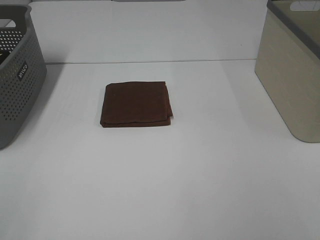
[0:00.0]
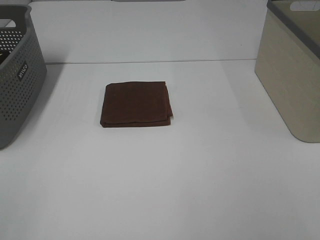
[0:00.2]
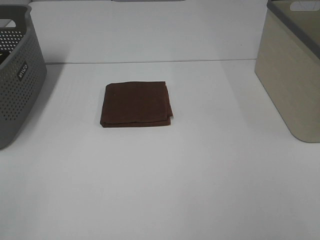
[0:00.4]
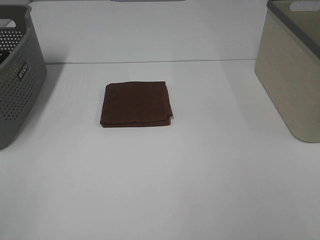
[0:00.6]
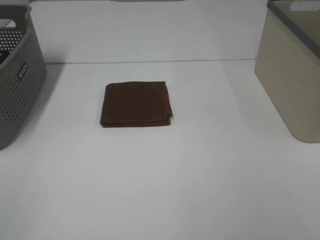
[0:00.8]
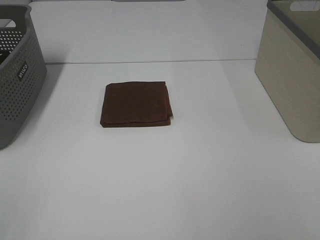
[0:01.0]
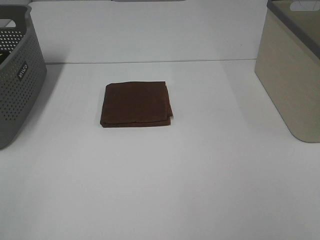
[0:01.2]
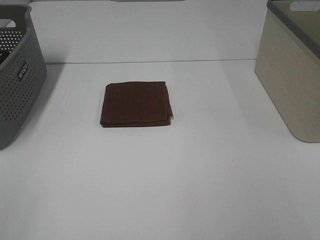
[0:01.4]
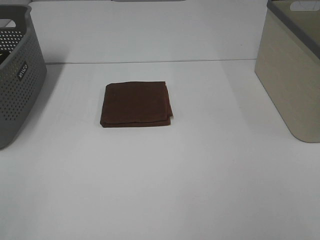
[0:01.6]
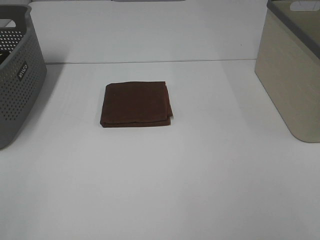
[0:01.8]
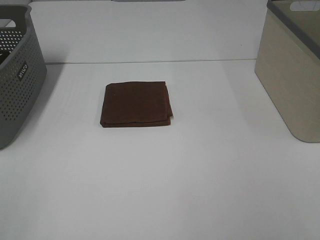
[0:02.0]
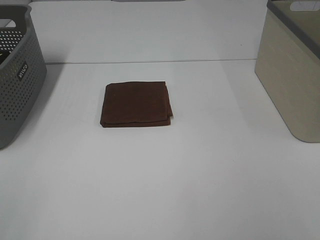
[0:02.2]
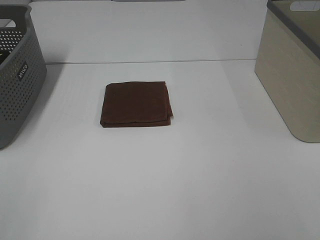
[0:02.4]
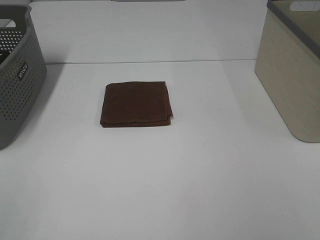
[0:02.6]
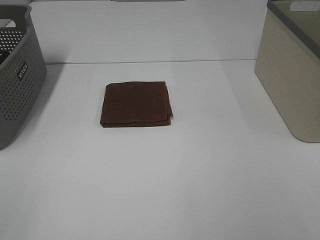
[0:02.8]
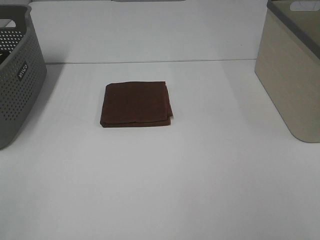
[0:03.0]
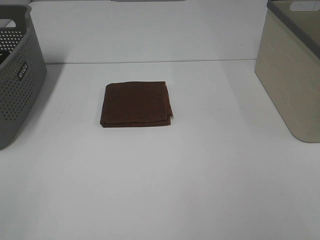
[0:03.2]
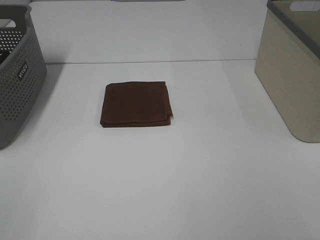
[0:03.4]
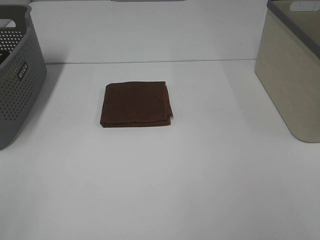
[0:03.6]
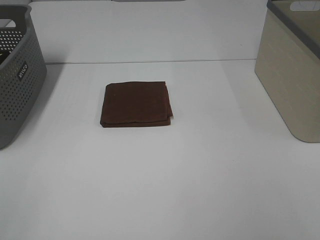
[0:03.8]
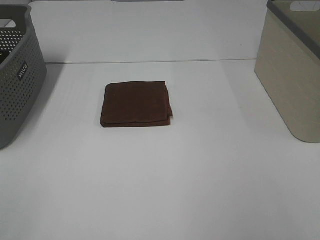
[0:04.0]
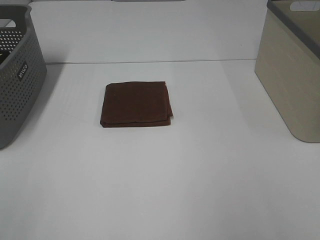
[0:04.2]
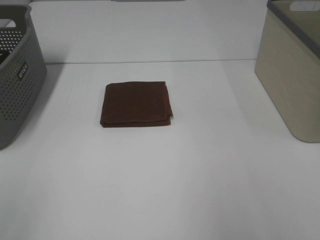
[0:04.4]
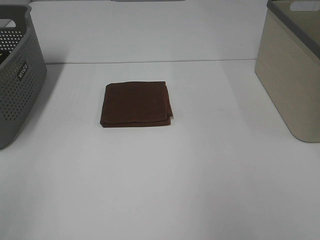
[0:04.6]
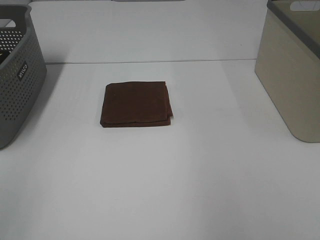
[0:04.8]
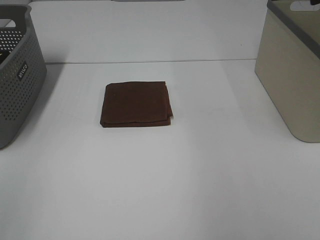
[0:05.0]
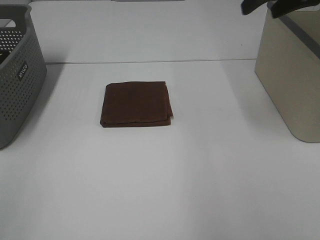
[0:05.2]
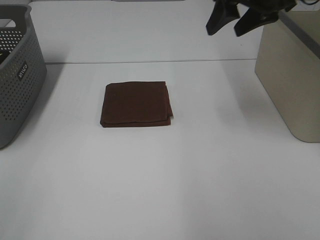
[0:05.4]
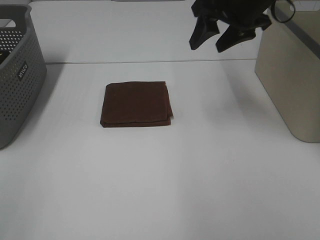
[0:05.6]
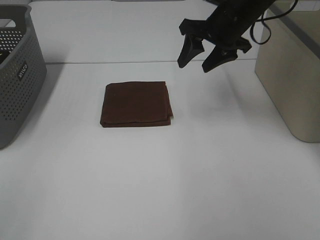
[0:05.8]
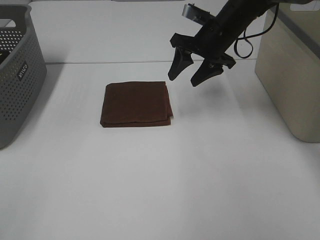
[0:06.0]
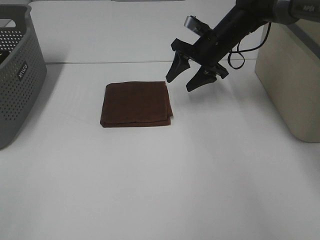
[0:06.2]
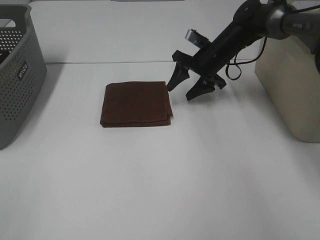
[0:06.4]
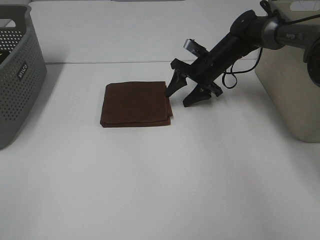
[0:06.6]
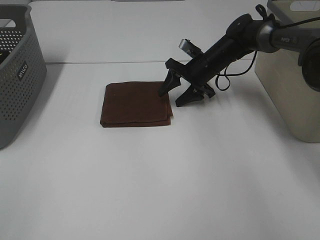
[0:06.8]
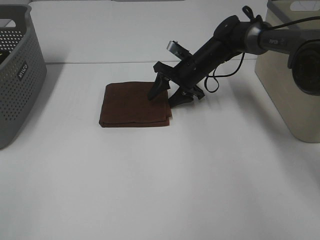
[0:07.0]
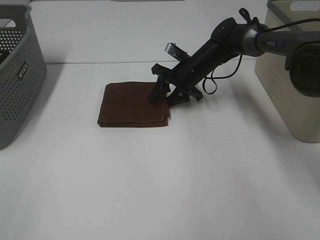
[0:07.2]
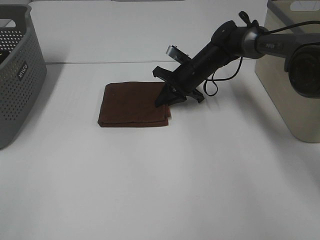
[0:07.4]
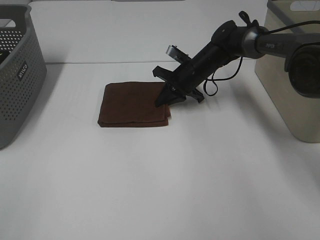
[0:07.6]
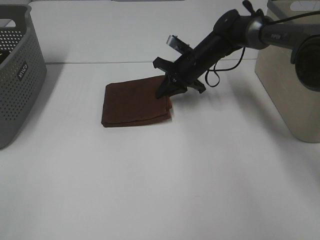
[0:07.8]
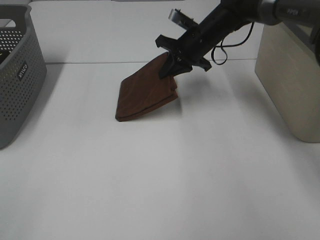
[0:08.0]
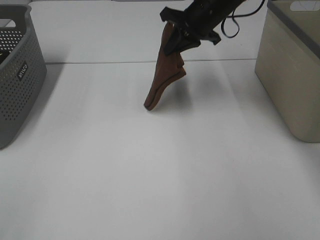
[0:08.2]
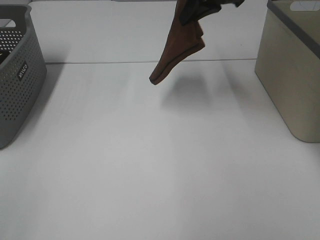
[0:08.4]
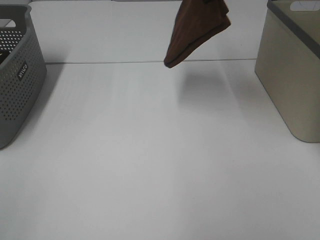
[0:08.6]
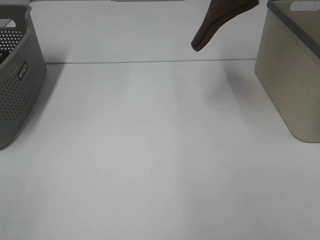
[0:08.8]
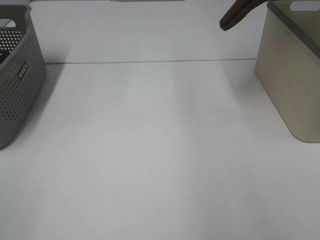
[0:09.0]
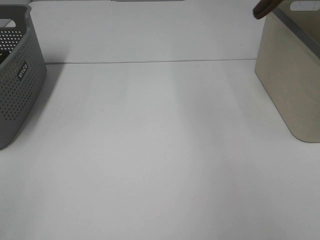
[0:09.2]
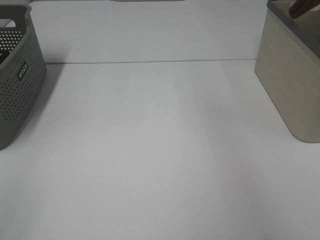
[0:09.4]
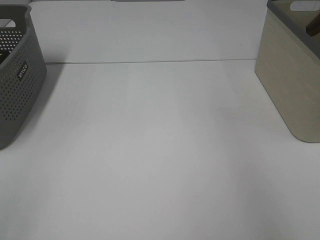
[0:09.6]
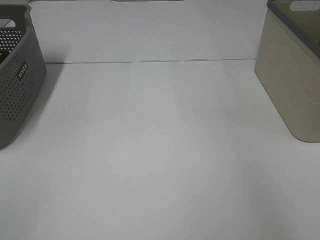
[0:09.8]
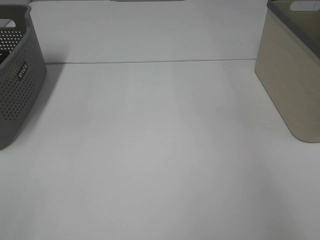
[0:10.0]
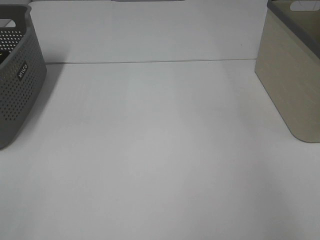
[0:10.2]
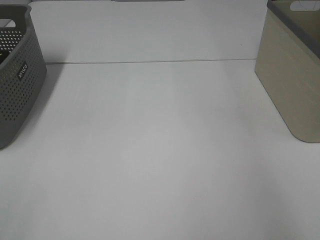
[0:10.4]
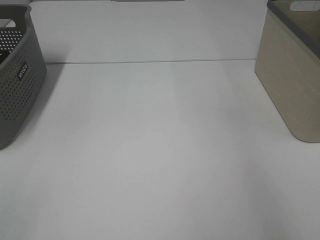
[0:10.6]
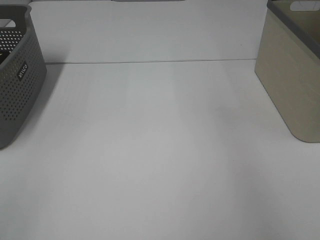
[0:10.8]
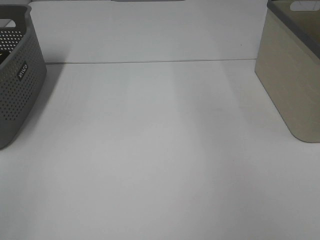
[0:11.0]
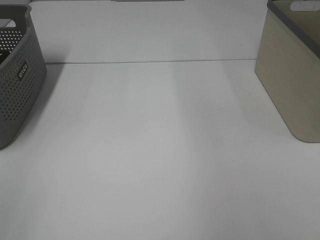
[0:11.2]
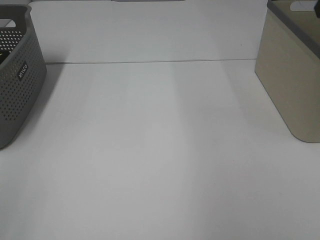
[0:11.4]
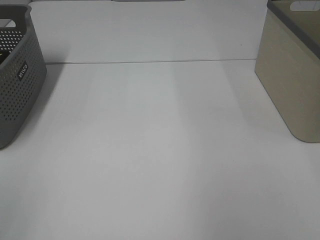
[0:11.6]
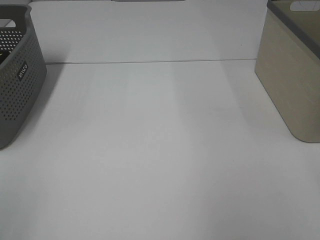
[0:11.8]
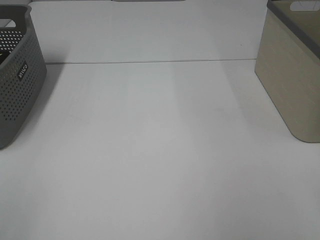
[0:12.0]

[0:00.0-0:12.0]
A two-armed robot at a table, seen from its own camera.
Step, 0:00.0 to 0:07.6: Right hand: grab the folded brown towel.
Step, 0:07.8 to 0:10.4: Right hand: place the brown towel in right basket.
0:00.0 to 0:03.0: The two grippers keep their place.
0:04.4 to 0:06.0: The right gripper goes approximately 40 cm forward, downward and to the left.
0:06.0 to 0:07.6: The right gripper heads downward, covering approximately 10 cm, and closes its fingers.
0:07.6 to 0:09.0: The right gripper is displaced upward and to the right by about 40 cm.
0:09.0 to 0:10.4: The right gripper moves to the right and downward, about 15 cm, and opens up.

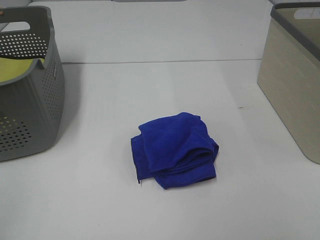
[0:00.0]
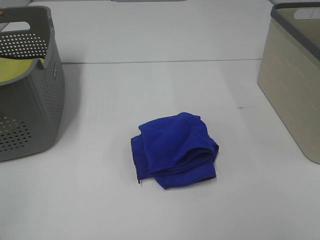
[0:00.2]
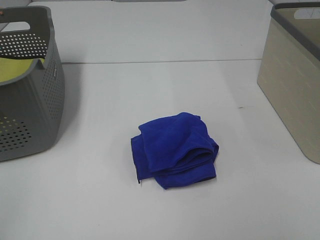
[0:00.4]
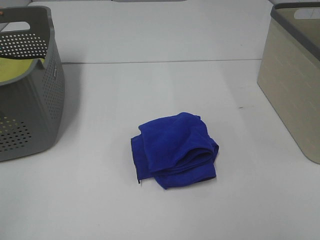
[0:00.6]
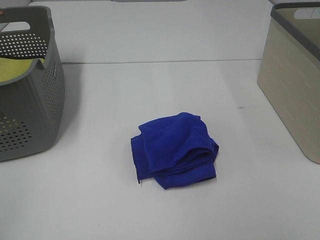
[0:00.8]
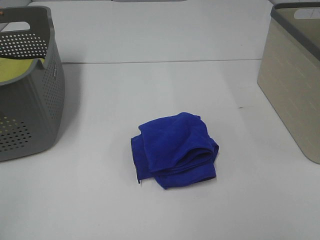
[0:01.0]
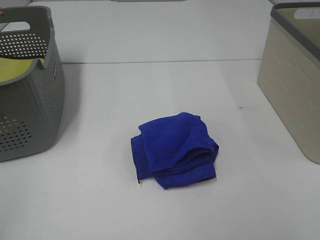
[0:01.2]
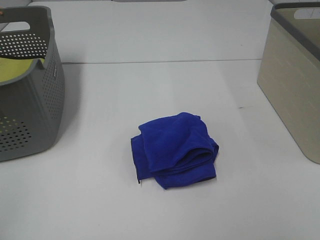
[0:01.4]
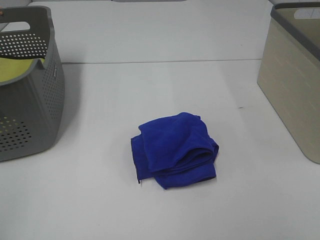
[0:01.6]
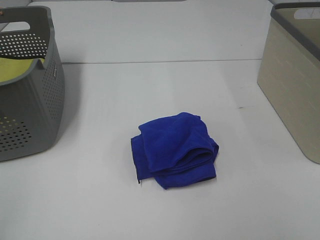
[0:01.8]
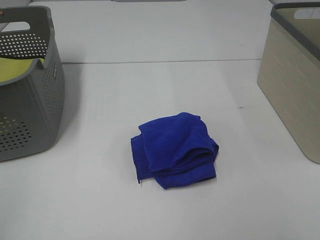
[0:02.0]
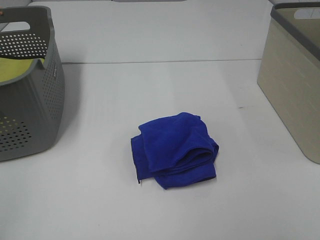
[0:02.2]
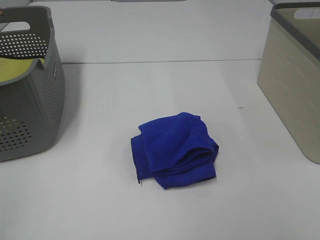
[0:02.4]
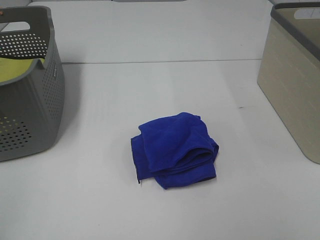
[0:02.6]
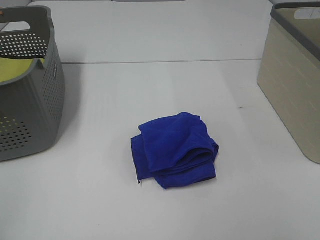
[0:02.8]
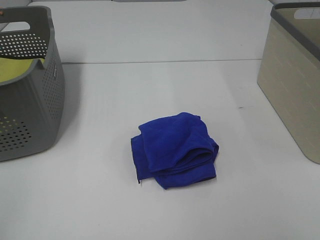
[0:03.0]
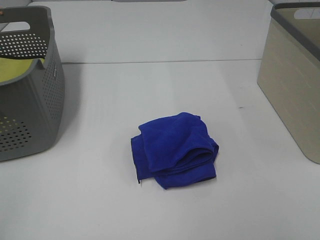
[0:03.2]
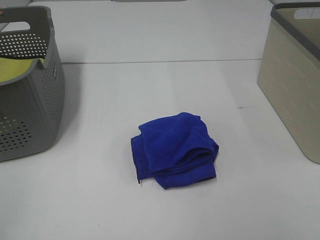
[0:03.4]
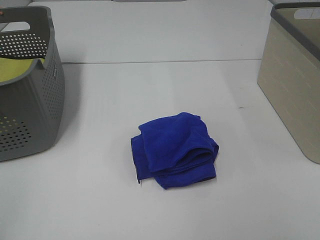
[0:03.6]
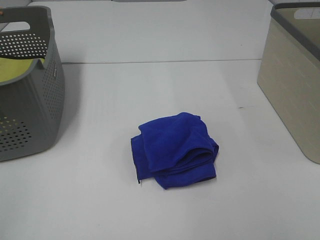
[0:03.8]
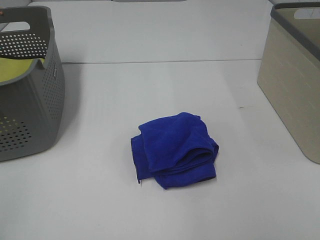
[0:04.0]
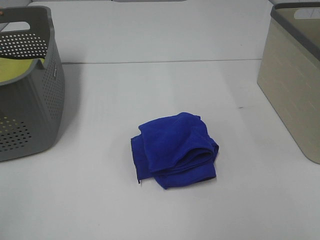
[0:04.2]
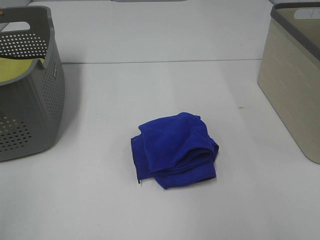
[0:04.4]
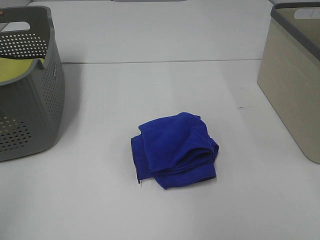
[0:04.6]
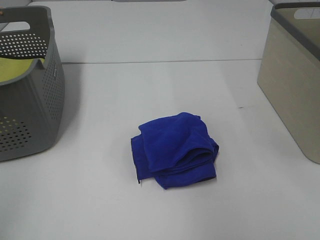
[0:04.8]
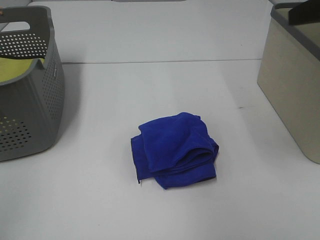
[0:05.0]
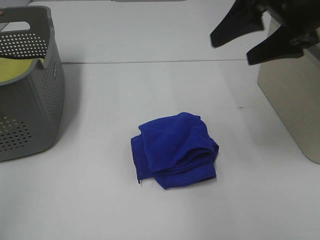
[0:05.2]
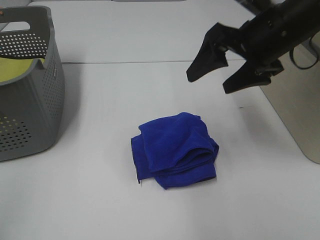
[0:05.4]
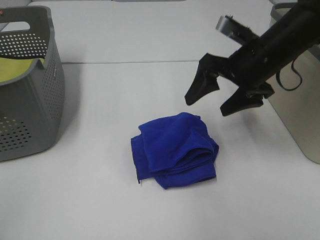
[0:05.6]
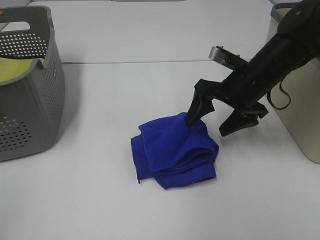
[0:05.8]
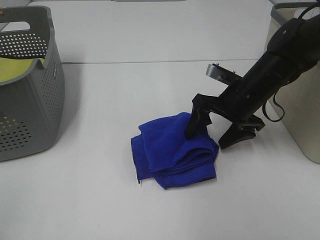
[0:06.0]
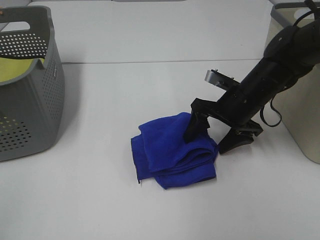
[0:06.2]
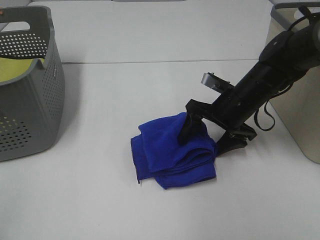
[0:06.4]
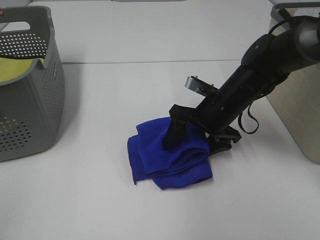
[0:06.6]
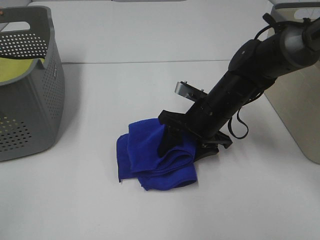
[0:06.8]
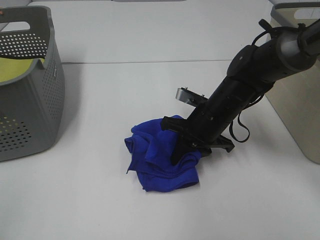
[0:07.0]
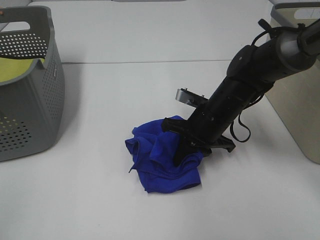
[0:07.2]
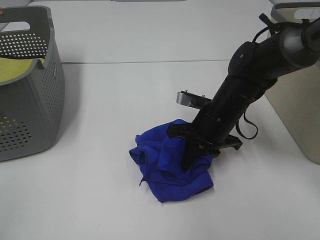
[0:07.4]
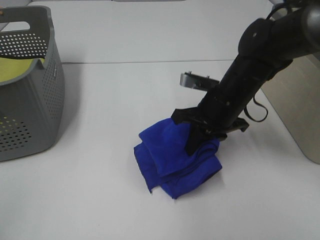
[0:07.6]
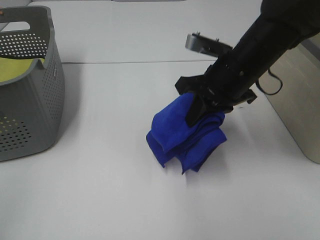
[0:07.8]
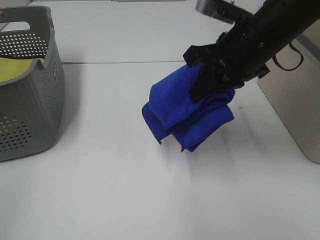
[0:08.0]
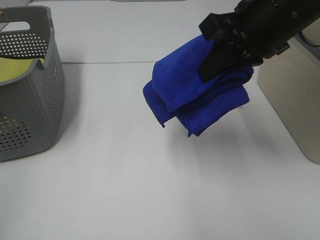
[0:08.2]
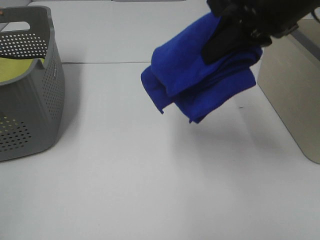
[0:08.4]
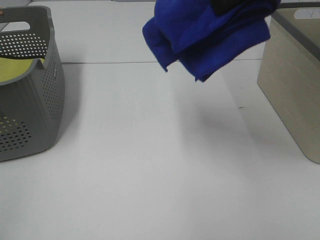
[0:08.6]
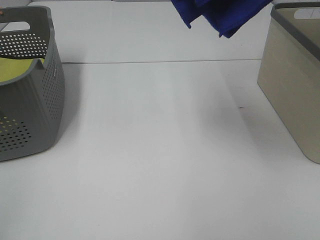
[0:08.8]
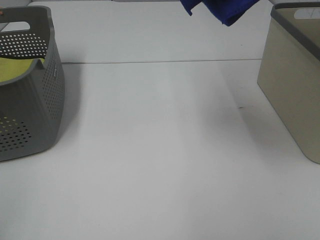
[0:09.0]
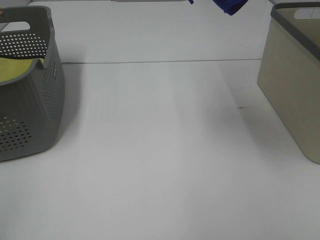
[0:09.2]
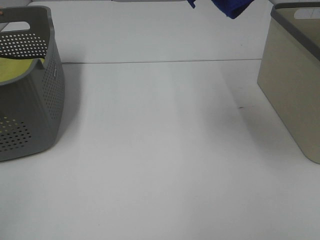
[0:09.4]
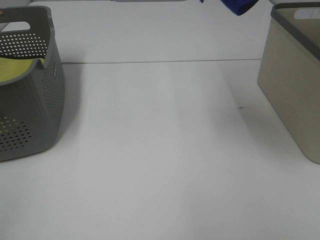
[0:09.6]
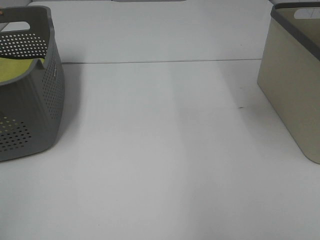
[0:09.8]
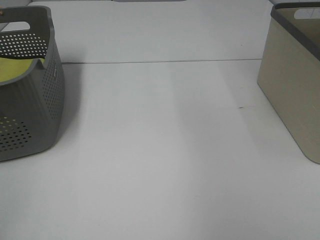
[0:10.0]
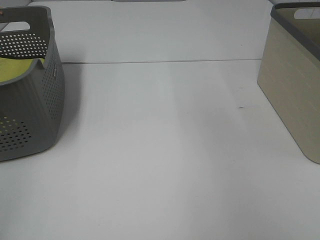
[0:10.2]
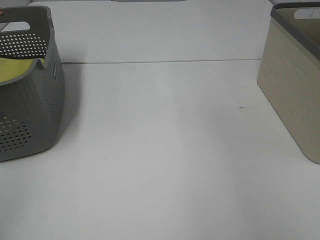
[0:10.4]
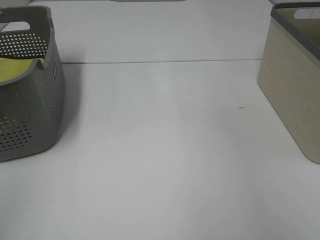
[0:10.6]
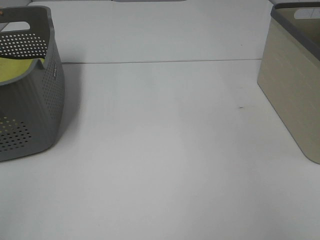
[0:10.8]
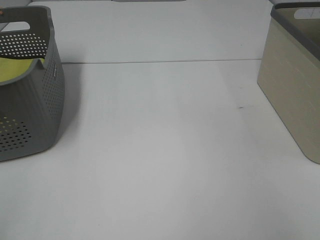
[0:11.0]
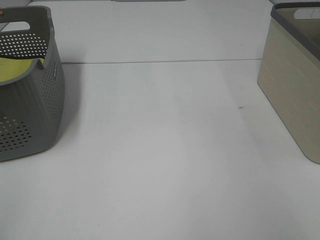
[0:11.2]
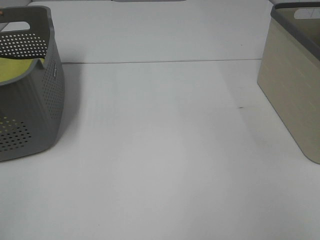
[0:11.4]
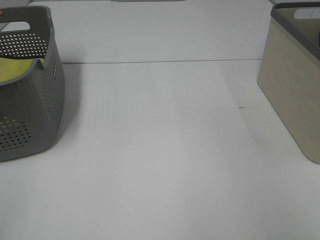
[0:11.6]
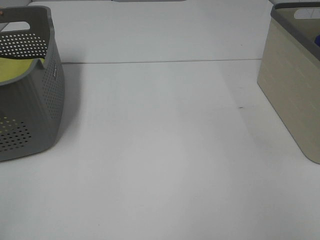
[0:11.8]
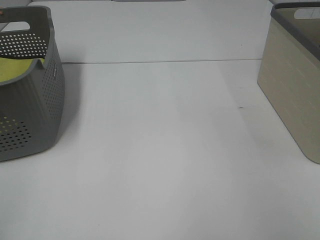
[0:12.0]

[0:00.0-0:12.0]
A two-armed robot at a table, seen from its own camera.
Step, 0:00.0 to 0:07.2: Right hand: grab the folded blue towel.
0:00.0 to 0:03.0: Both grippers stay about where they are.
0:04.4 to 0:06.0: The right gripper heads downward, forward and to the left, covering approximately 40 cm.
0:06.0 to 0:07.6: The right gripper shifts by about 5 cm, and closes.
0:07.6 to 0:09.0: The right gripper moves upward, about 35 cm.
0:09.0 to 0:10.4: The right gripper heads to the right, covering about 20 cm.
